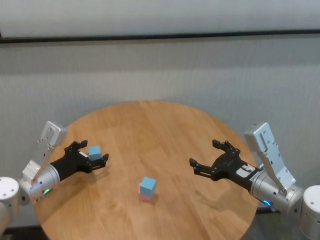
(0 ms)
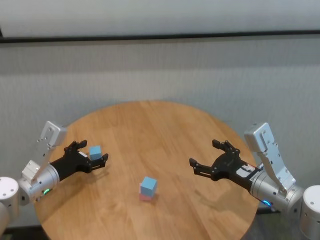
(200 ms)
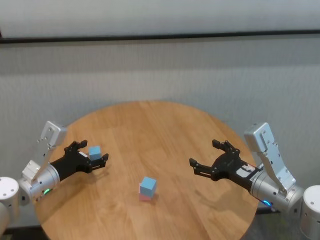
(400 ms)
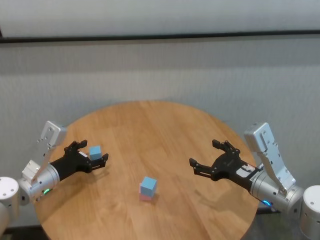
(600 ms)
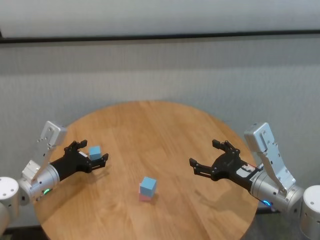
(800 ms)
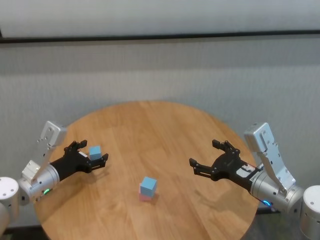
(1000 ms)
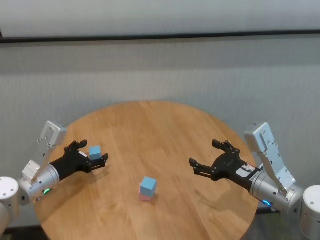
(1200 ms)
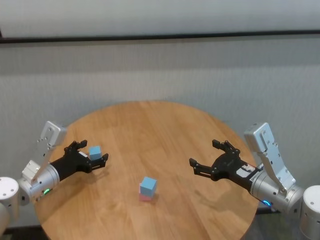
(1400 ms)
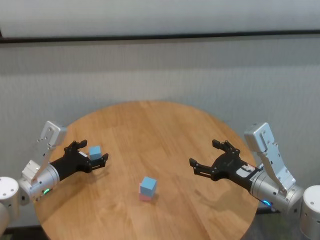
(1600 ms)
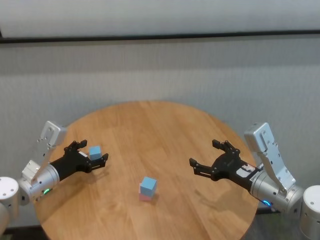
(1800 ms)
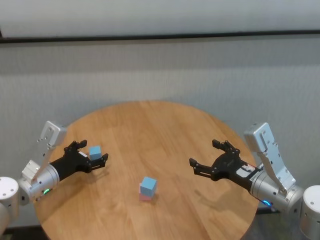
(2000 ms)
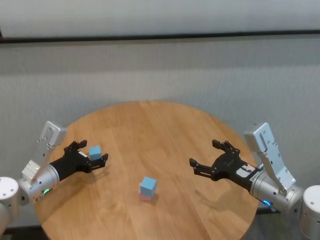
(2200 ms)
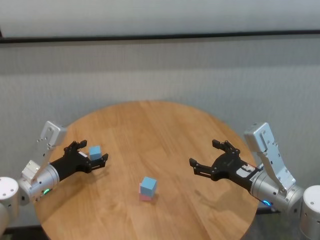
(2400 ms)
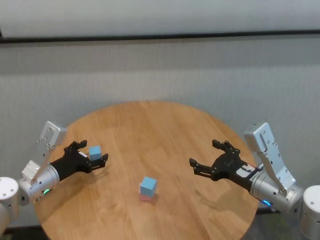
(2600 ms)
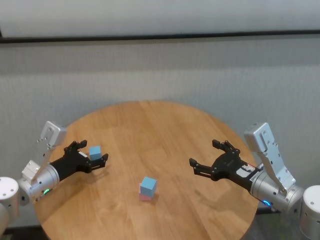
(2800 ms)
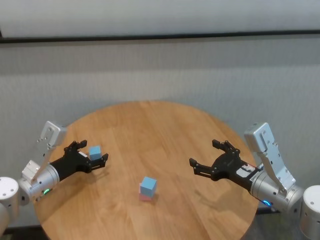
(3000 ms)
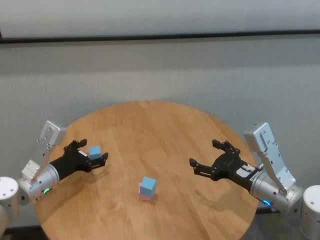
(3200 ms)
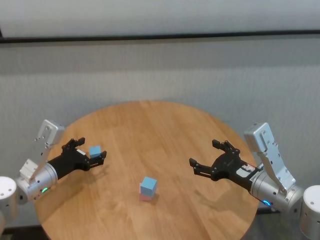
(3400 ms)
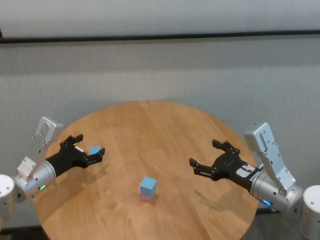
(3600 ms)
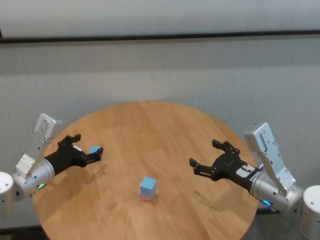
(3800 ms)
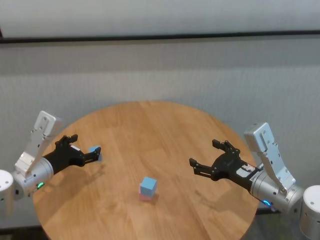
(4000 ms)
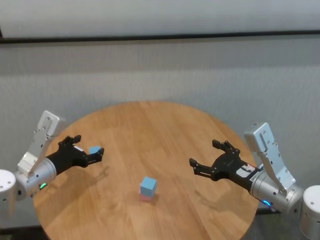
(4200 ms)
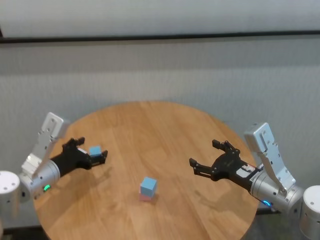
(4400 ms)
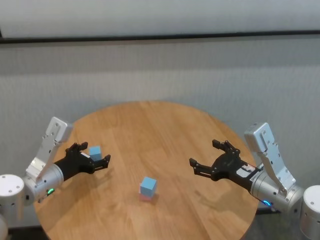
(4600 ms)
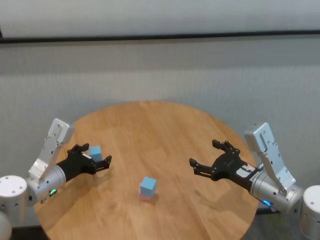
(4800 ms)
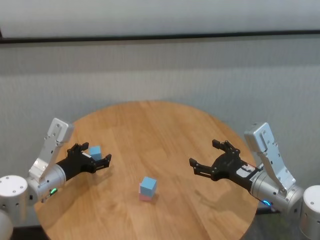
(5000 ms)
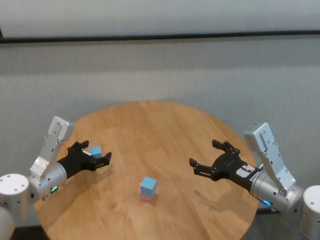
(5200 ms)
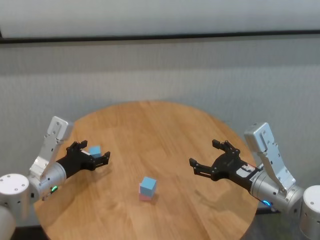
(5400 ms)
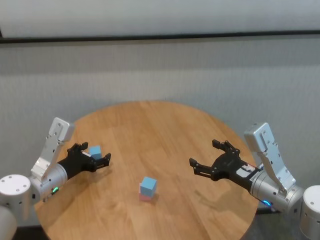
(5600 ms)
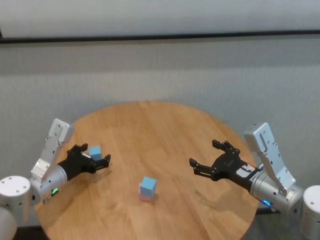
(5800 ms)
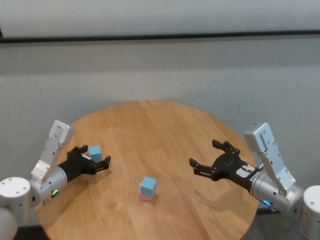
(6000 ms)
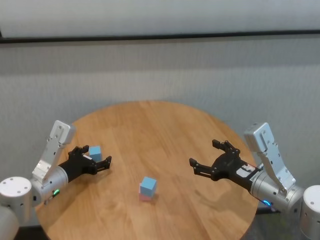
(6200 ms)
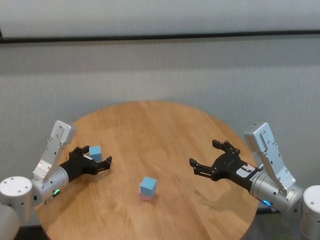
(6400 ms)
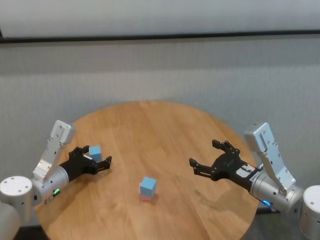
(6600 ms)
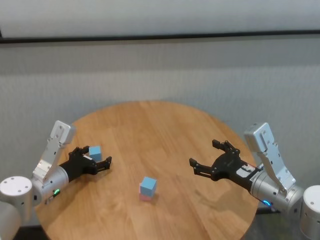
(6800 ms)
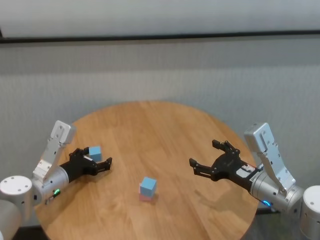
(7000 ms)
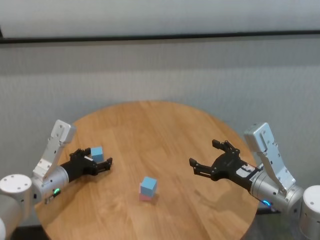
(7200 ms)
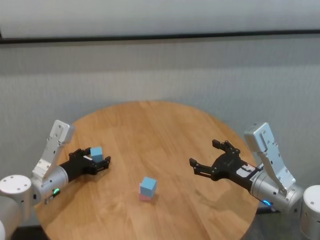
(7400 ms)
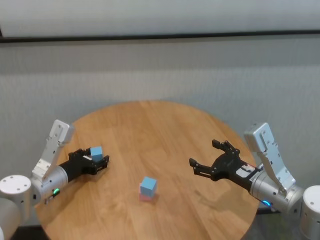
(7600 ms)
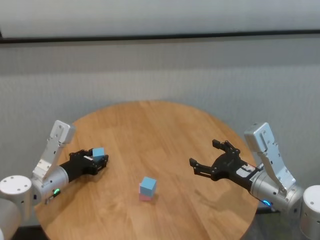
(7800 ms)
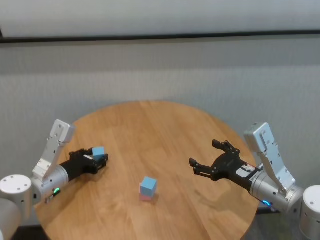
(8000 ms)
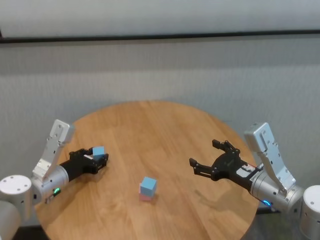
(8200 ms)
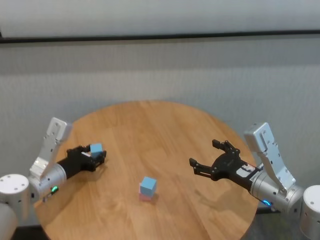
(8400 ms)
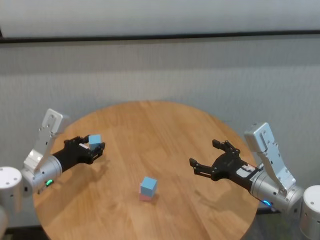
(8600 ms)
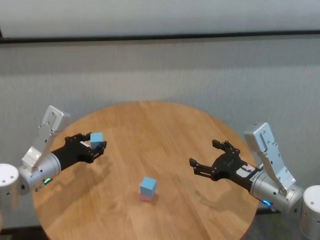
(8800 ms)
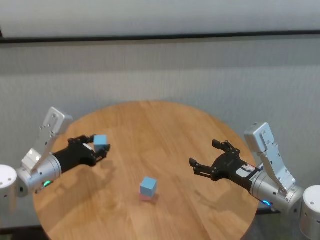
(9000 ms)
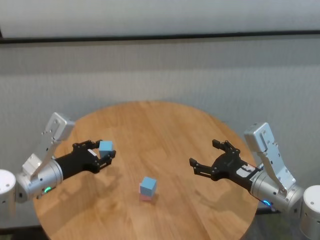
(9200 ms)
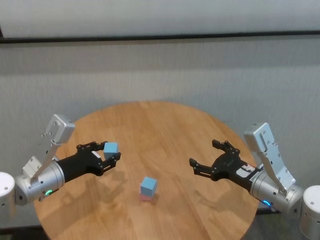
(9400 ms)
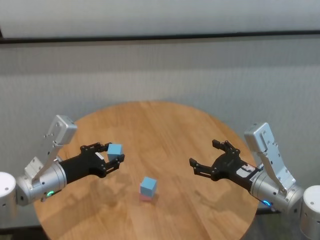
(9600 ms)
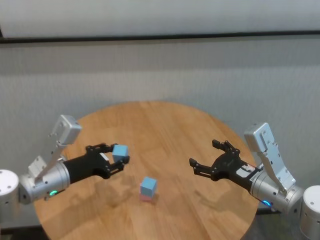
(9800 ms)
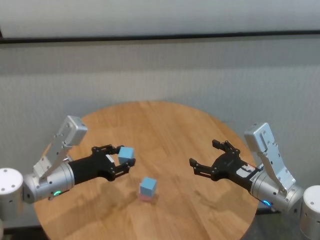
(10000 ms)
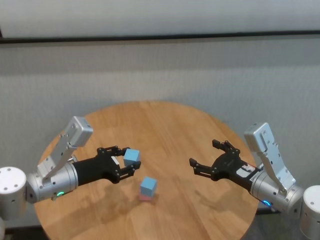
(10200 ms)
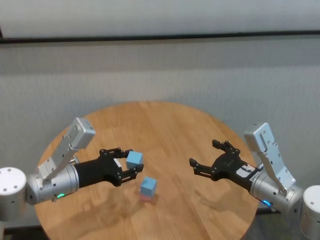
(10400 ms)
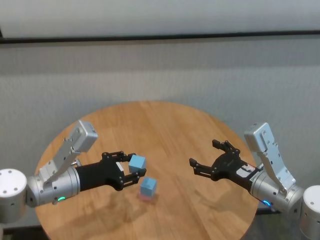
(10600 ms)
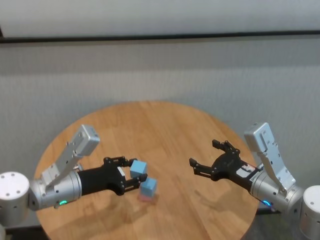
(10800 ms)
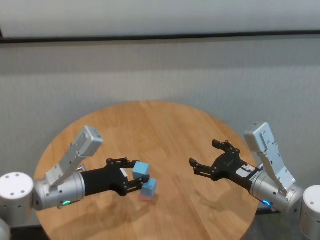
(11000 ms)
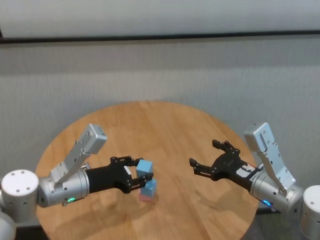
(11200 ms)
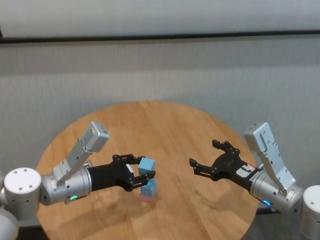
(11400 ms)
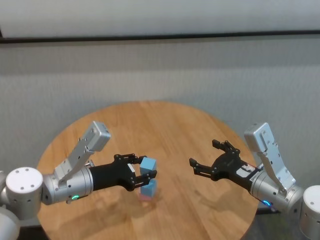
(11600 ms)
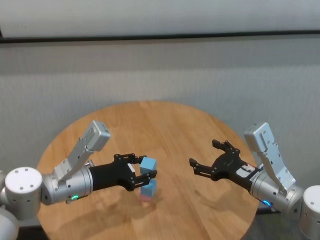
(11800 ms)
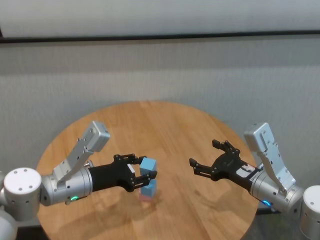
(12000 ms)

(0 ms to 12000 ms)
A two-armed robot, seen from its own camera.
Task of the whole recording: stack building blocks on the table.
Step, 0 ms - 7800 ms: Grasp the blue building block with left gripper.

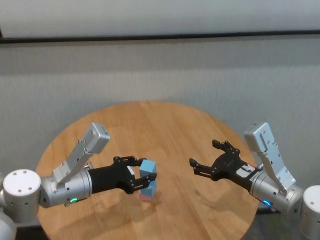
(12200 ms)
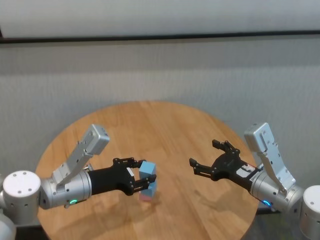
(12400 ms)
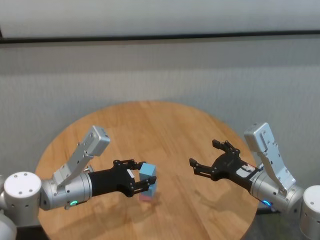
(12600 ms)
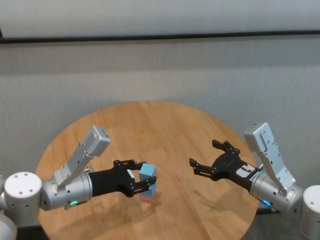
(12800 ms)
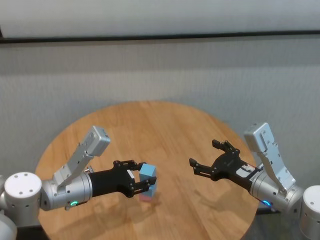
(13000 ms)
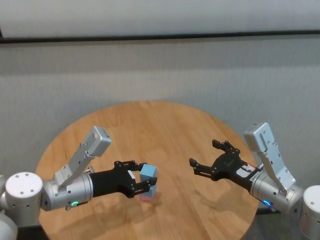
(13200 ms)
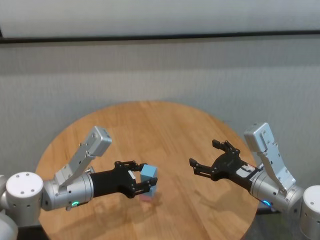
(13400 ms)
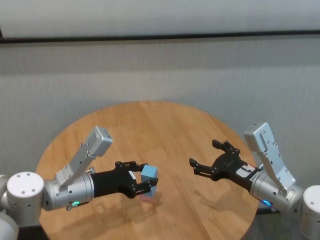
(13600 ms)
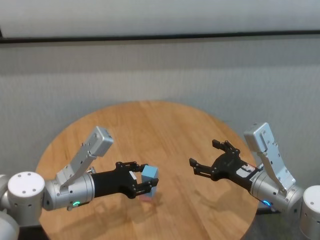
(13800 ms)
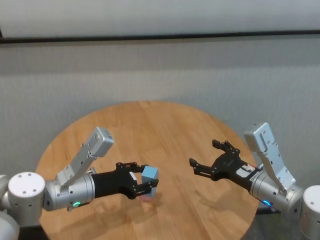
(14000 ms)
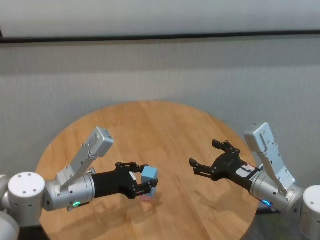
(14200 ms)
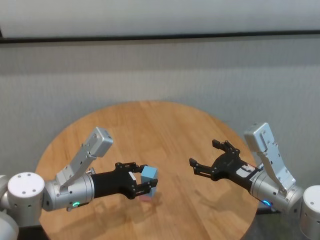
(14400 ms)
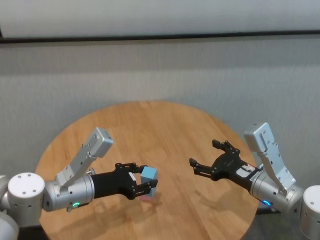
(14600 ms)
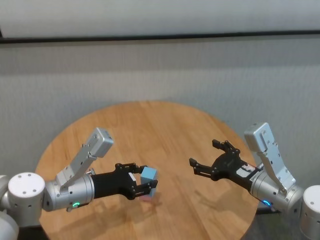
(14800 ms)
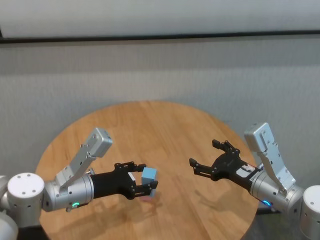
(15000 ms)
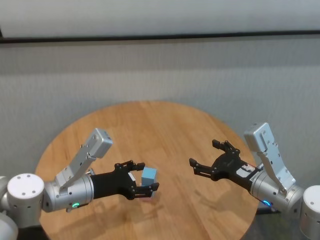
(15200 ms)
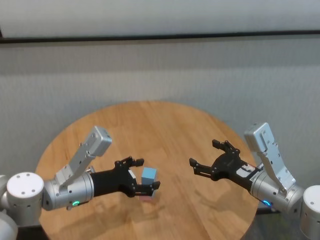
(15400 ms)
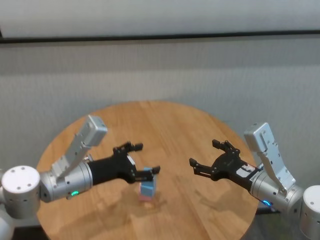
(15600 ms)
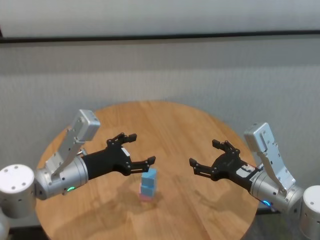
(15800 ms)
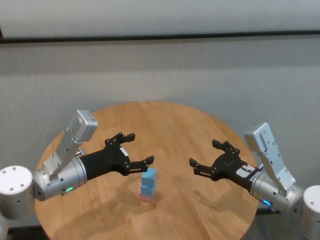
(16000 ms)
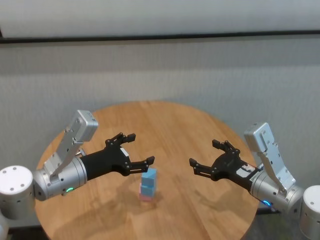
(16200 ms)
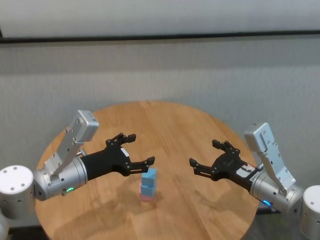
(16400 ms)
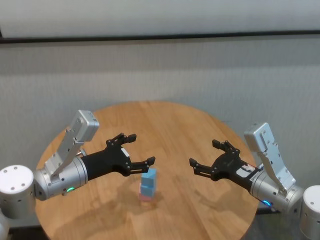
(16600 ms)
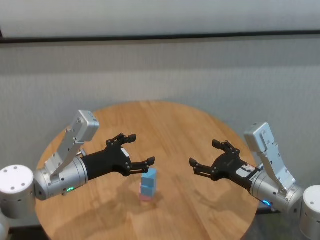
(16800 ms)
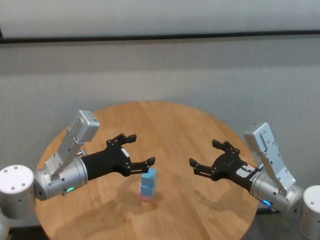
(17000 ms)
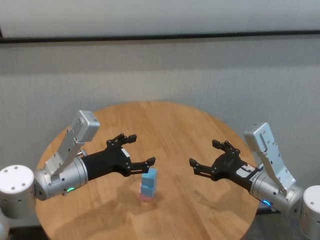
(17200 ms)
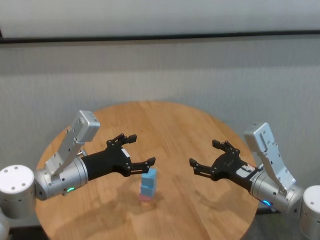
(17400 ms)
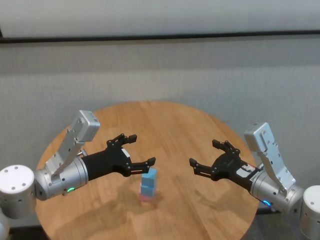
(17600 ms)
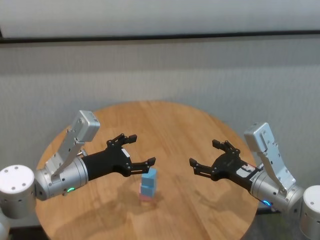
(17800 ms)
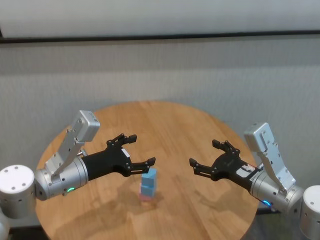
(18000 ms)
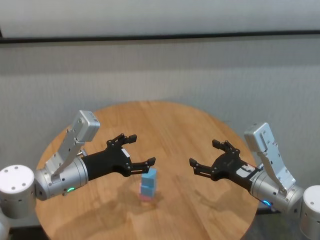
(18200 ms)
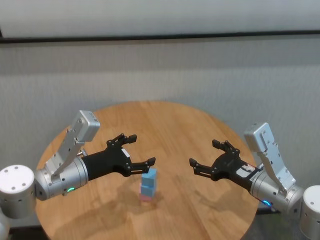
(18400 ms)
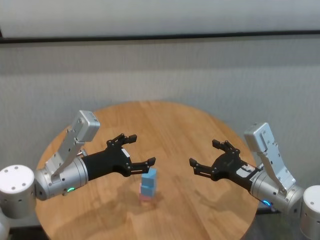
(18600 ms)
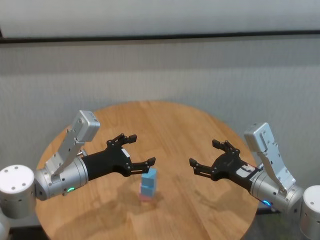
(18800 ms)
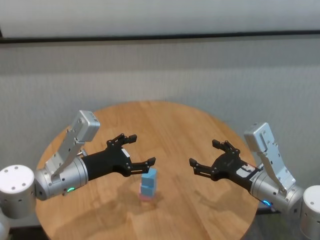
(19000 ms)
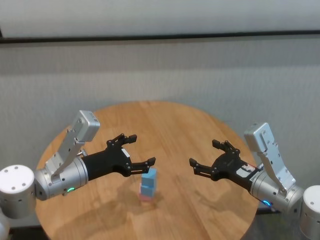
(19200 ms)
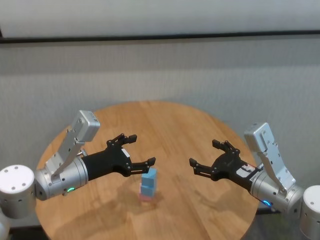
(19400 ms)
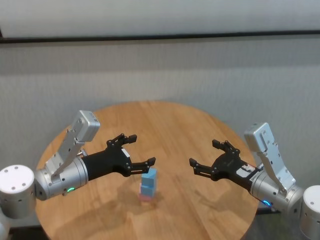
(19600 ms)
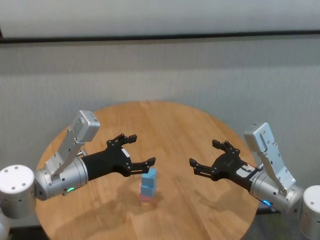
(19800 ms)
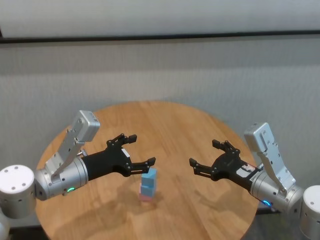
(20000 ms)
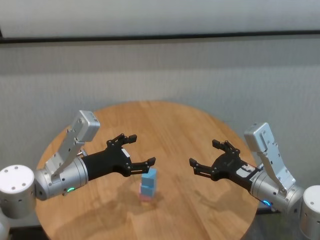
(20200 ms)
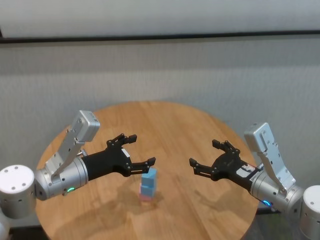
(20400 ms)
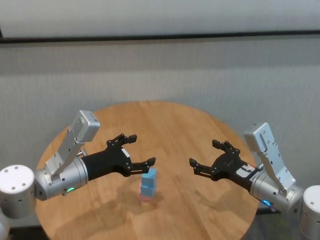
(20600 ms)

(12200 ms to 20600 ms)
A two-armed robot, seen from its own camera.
Task of the whole recording: stack building blocks on the table.
Step, 12200 ms - 15200 ms: Place the blue building block on the blue building blocks with left gripper.

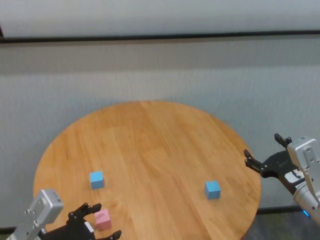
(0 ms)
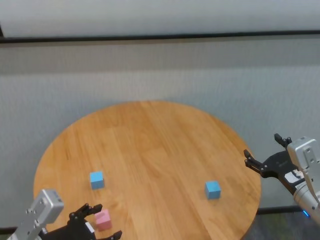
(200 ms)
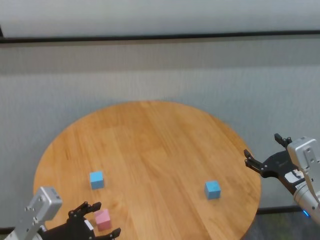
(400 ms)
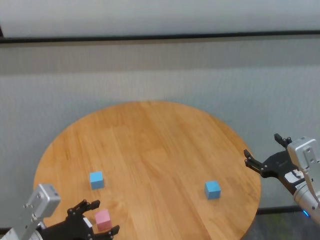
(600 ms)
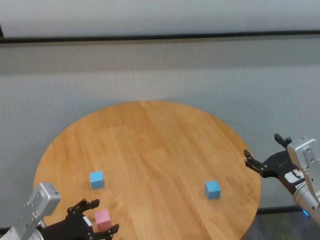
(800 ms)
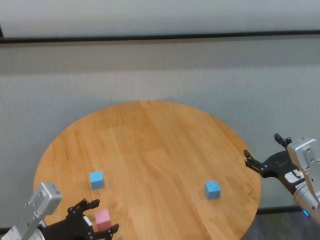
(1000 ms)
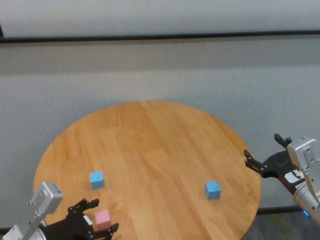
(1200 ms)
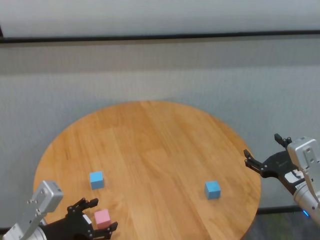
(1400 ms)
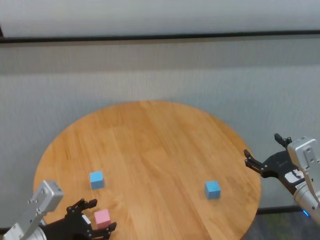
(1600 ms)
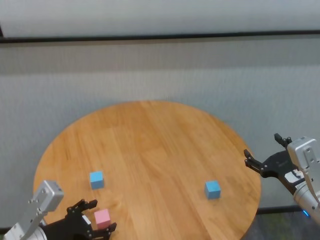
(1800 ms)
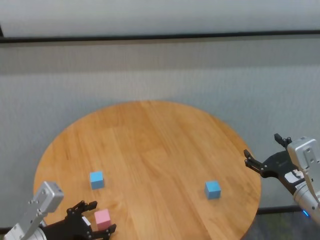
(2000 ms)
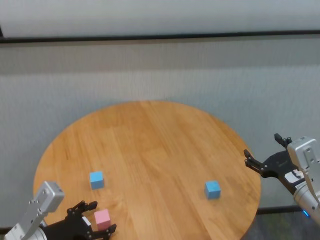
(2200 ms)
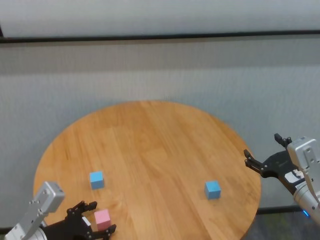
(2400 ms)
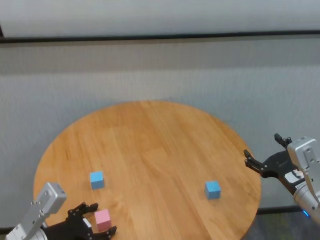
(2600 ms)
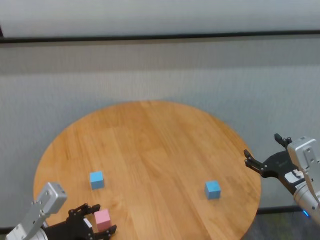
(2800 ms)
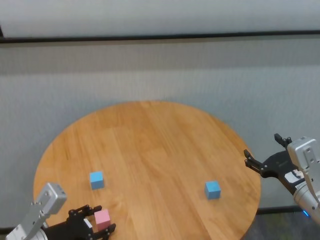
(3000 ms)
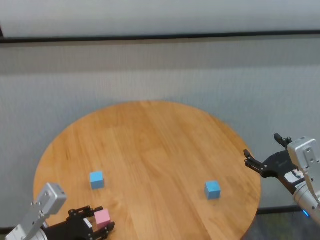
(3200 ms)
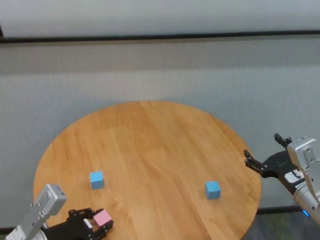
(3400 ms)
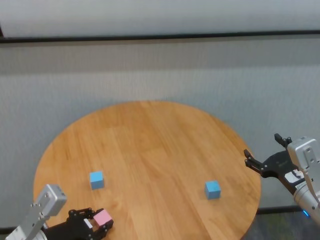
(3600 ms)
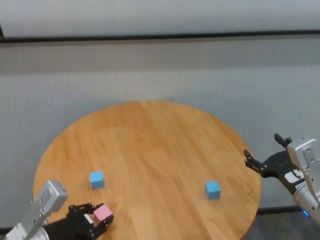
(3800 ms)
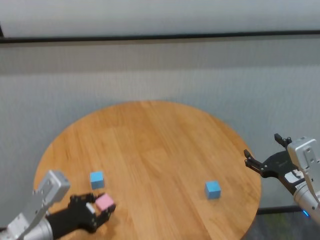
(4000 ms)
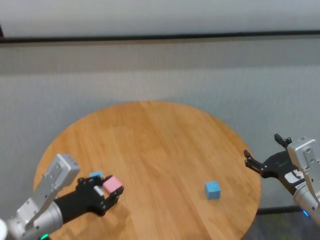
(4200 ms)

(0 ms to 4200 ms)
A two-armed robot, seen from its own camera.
Task of the whole recording: stack building blocks on the table.
Step, 0 ms - 3400 ms: Grasp the pink building block with left gripper.
